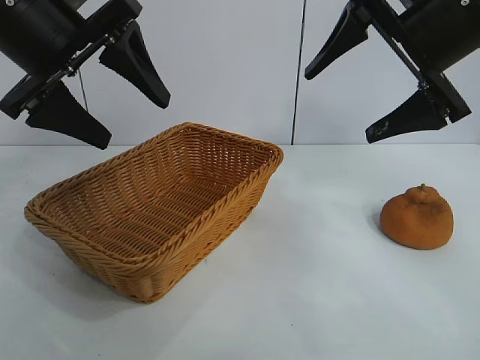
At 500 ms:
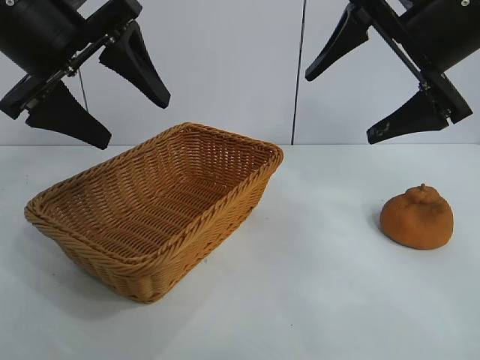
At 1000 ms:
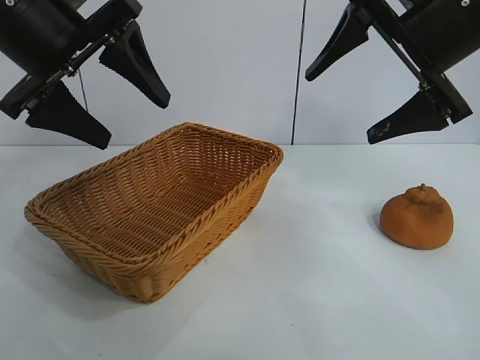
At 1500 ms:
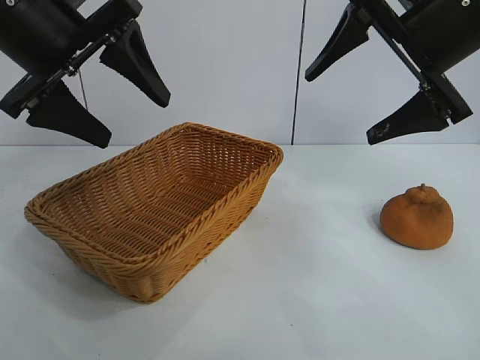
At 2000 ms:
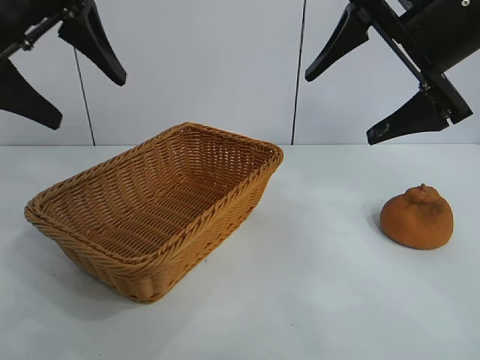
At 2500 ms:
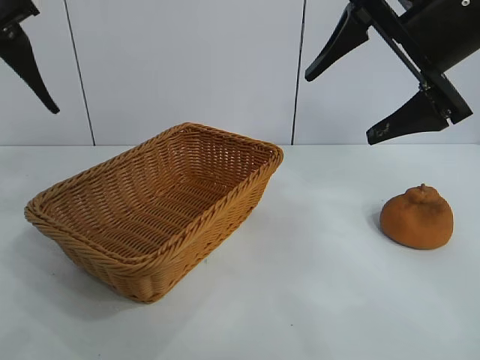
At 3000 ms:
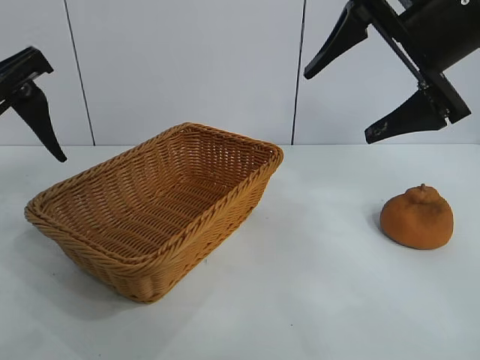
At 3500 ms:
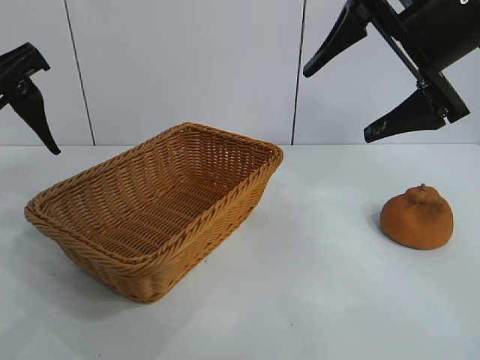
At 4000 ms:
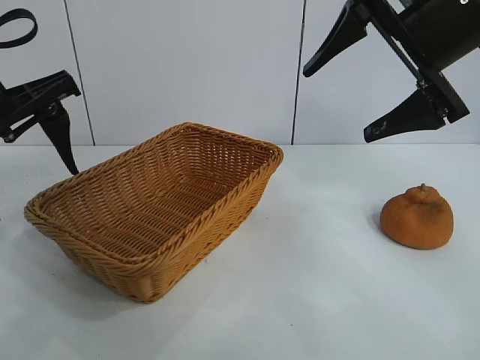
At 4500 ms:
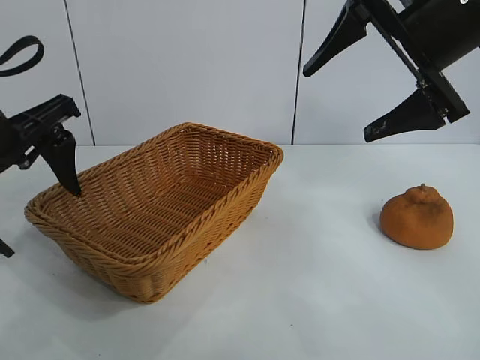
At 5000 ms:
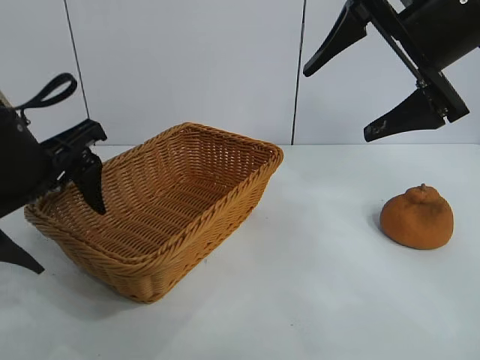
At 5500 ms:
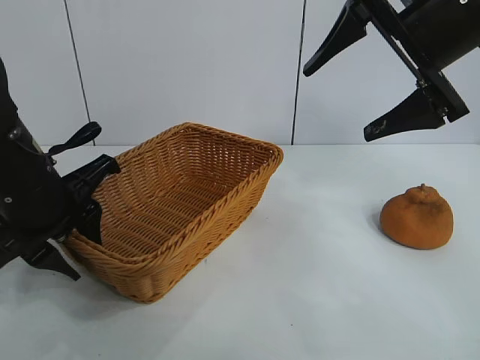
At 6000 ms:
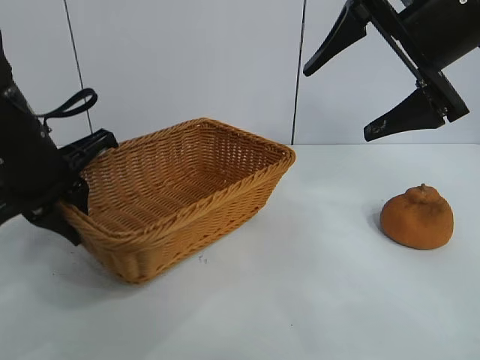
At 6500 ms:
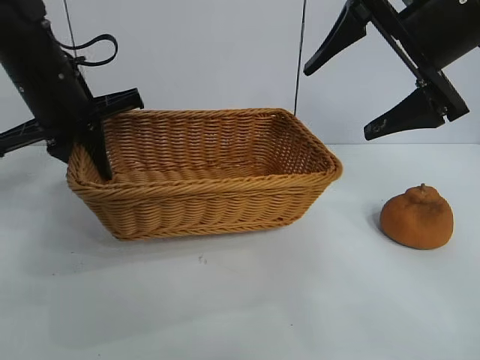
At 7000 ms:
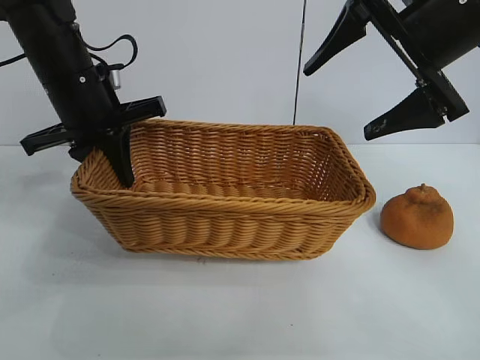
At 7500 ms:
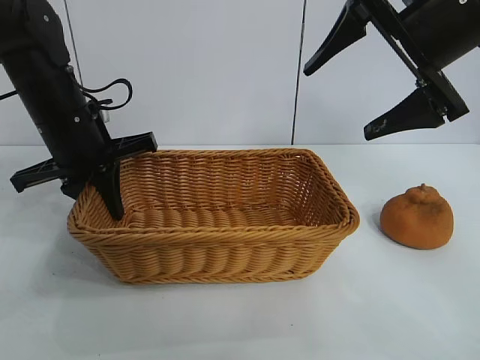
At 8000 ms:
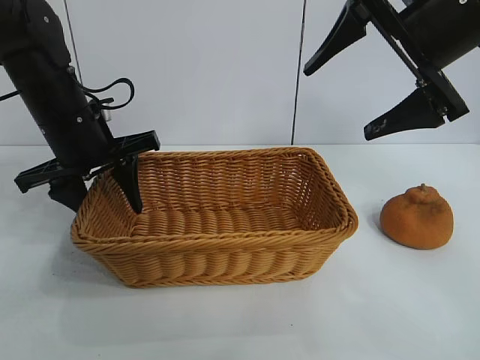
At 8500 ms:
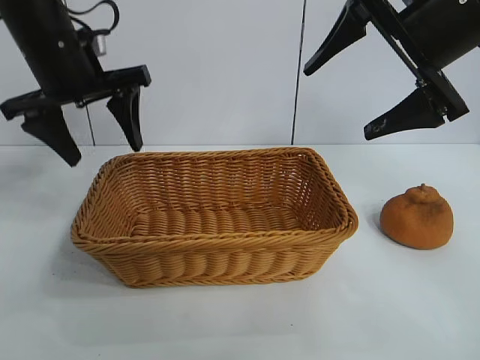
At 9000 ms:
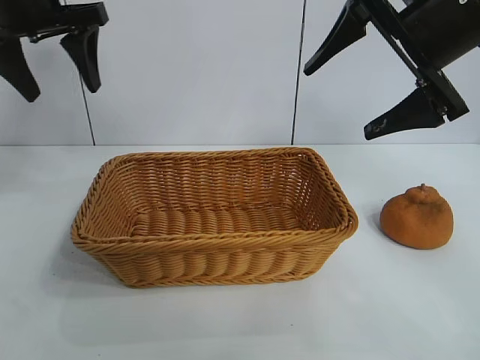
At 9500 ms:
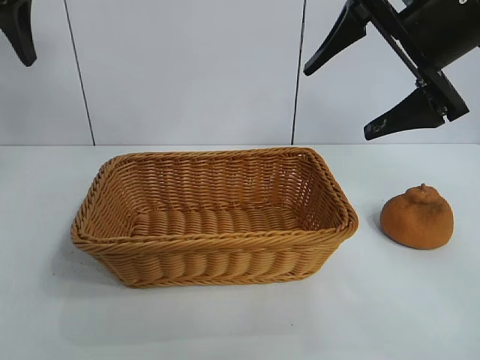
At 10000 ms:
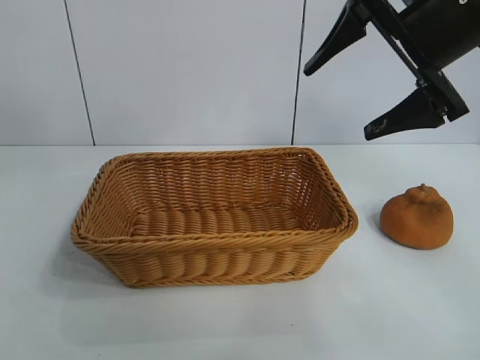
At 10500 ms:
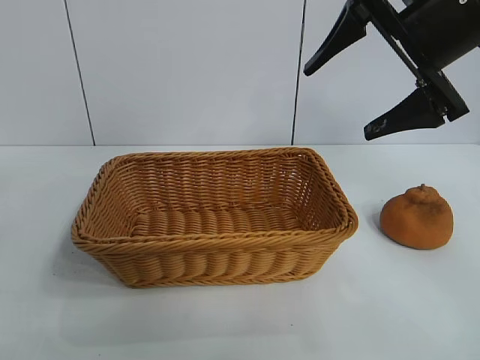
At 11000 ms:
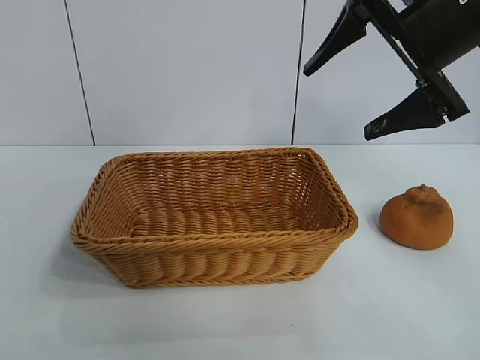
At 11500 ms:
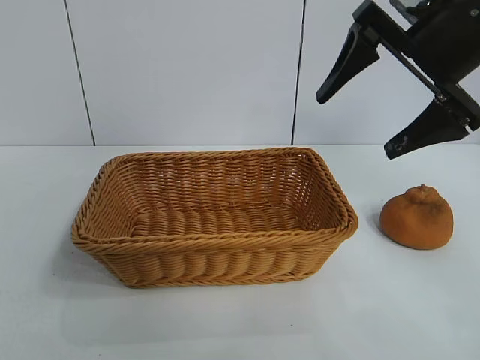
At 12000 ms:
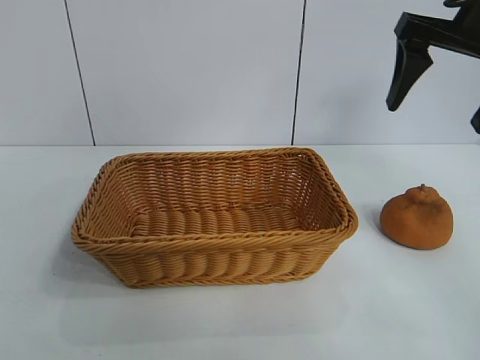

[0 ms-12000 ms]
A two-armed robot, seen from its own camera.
Task of the whole recording: pick up the orange and put it into the basket.
Step, 1500 ms to 5500 ms: Grasp the basket with left gripper.
Step, 6000 ms to 8000 ms: Place the basket in the center of view with left gripper.

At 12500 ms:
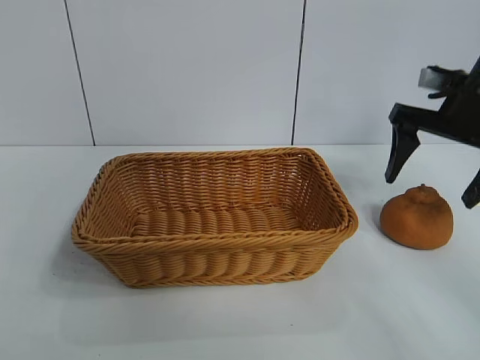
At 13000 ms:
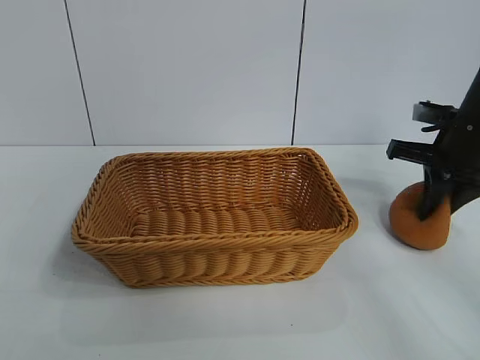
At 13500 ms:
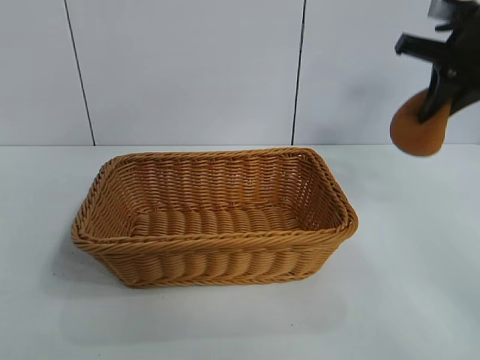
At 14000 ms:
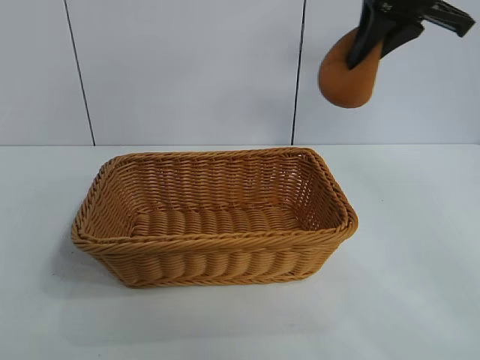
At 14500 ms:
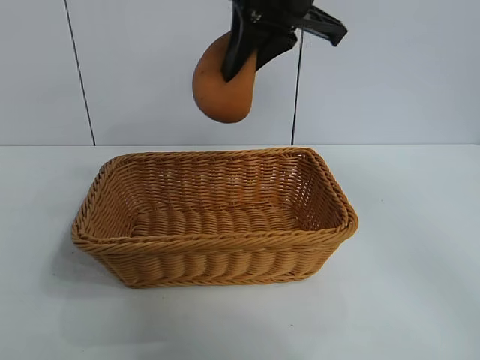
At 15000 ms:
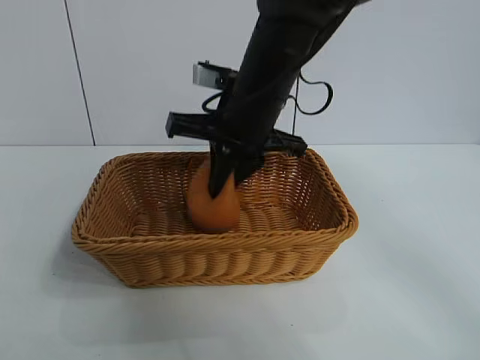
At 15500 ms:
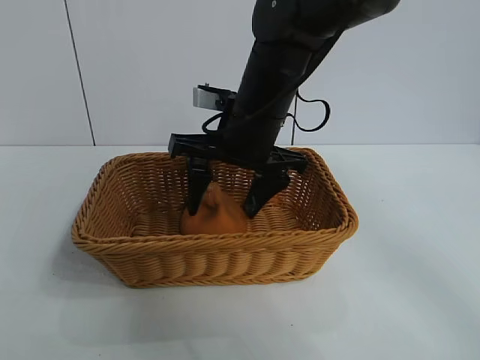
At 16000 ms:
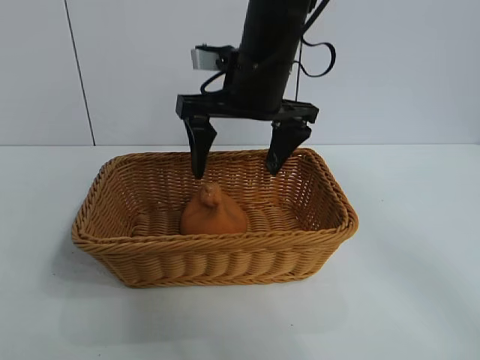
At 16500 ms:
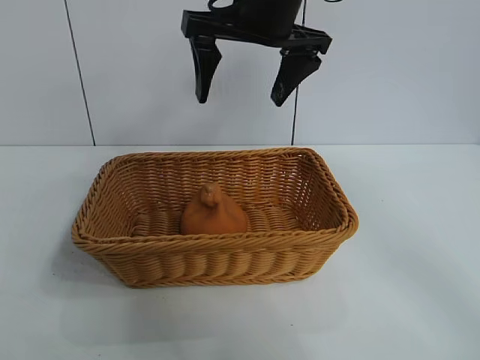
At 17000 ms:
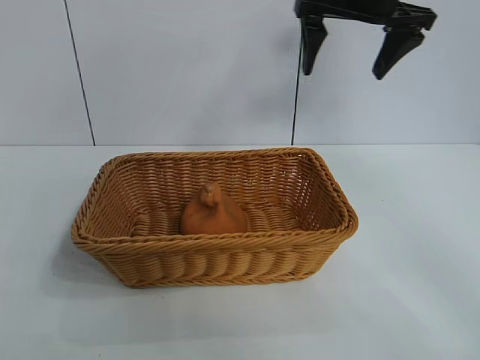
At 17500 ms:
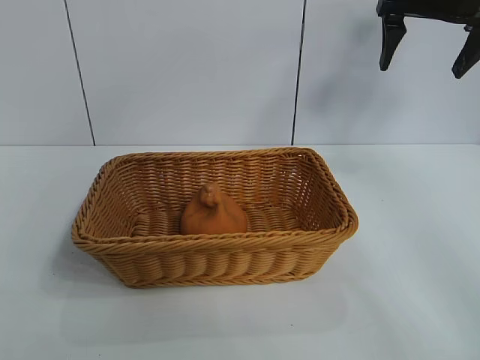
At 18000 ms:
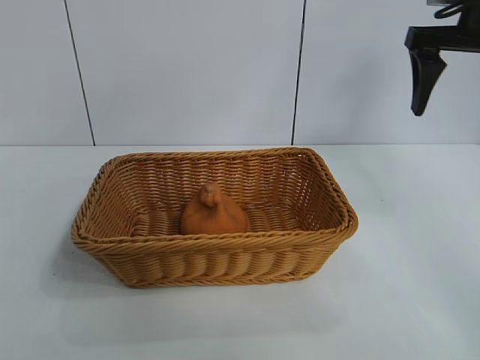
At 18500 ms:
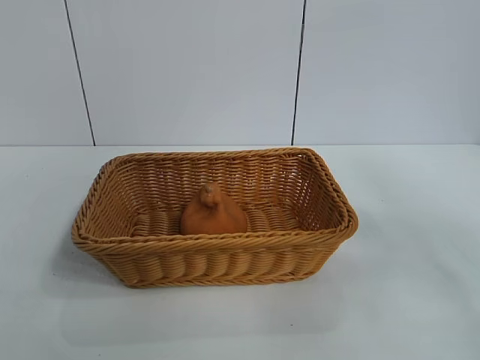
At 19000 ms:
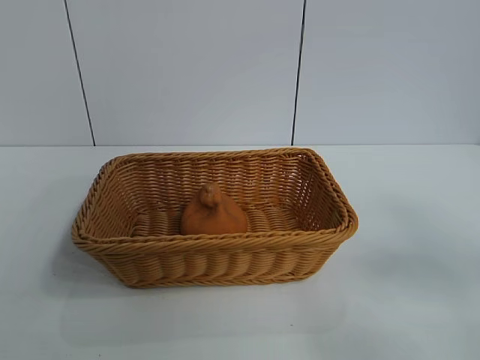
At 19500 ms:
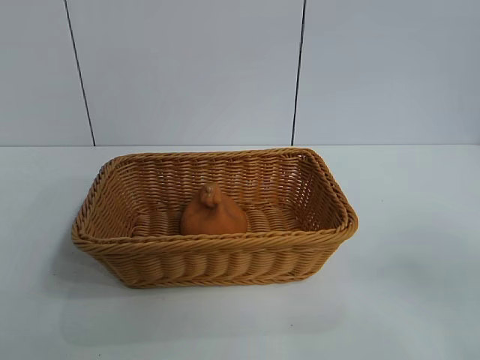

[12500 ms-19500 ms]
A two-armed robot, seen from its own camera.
Task of the whole recording: pick up the orange and put it into the basket.
Step, 13500 ms to 15500 ms: Place the orange in the basket with right gripper.
